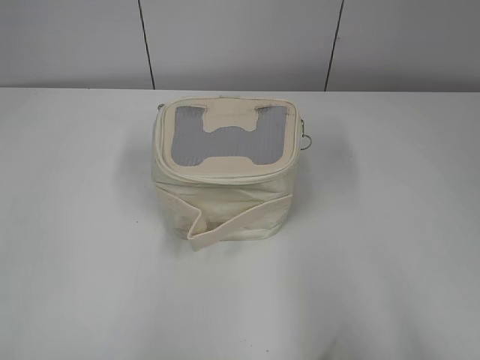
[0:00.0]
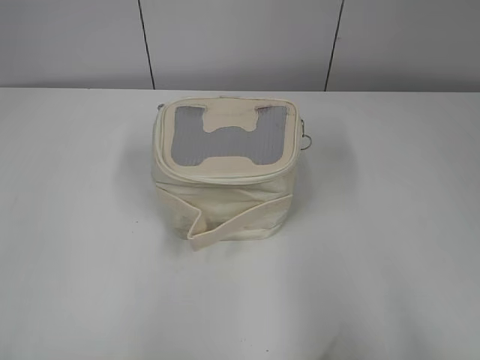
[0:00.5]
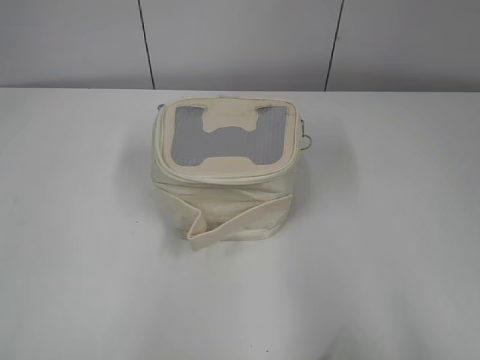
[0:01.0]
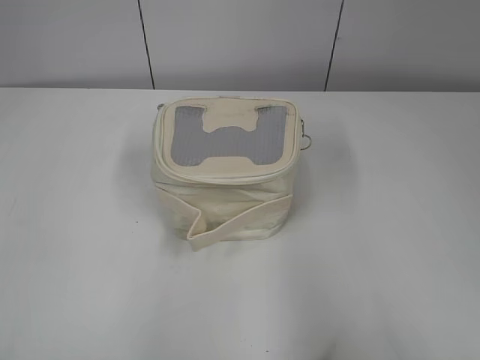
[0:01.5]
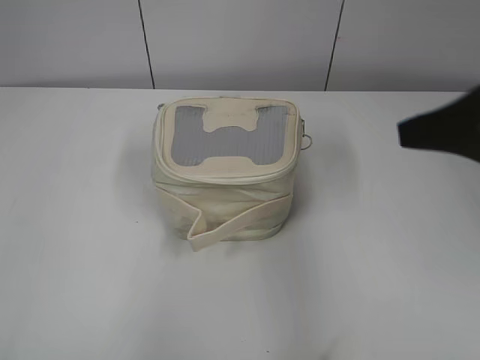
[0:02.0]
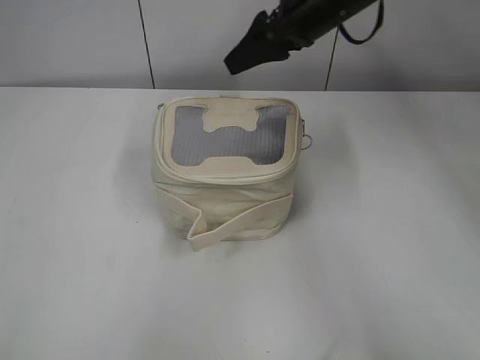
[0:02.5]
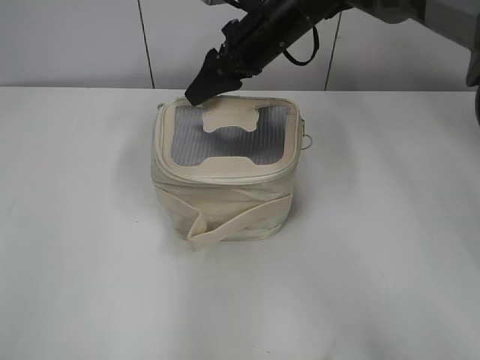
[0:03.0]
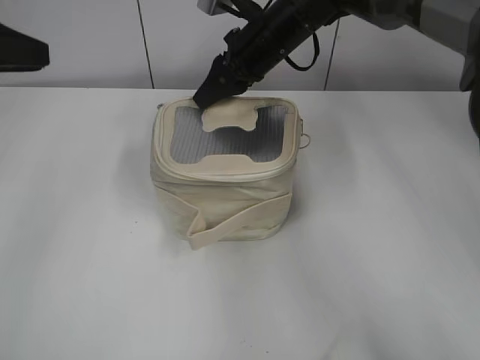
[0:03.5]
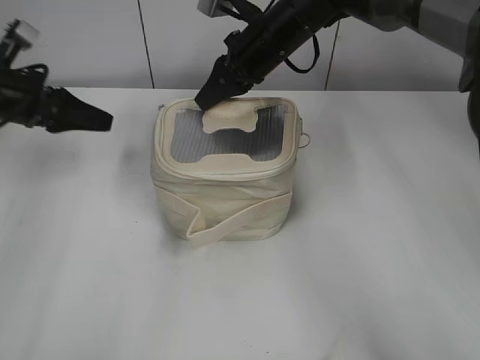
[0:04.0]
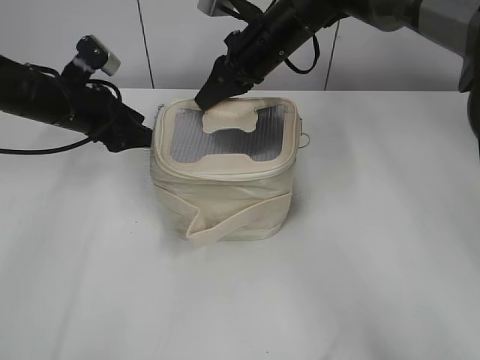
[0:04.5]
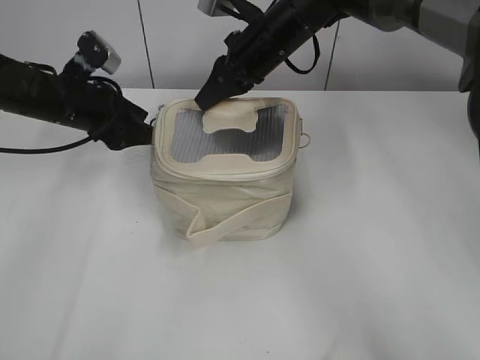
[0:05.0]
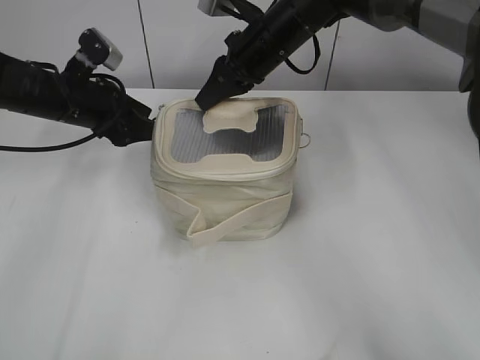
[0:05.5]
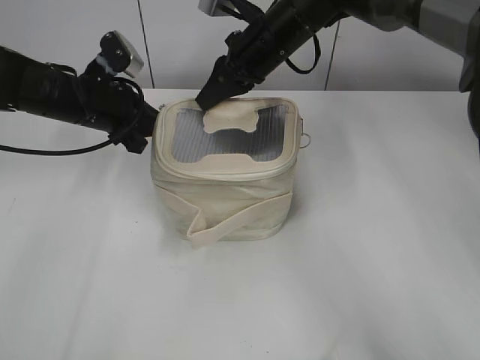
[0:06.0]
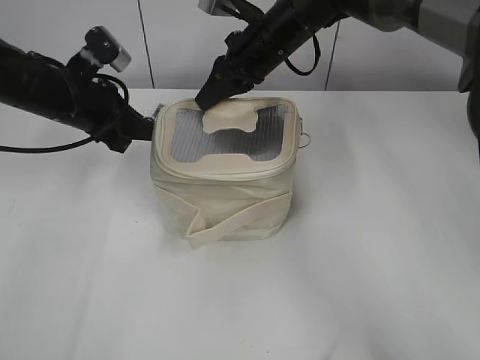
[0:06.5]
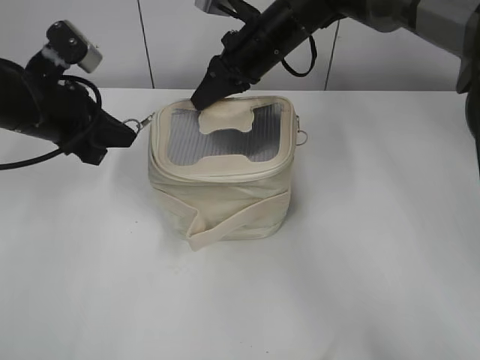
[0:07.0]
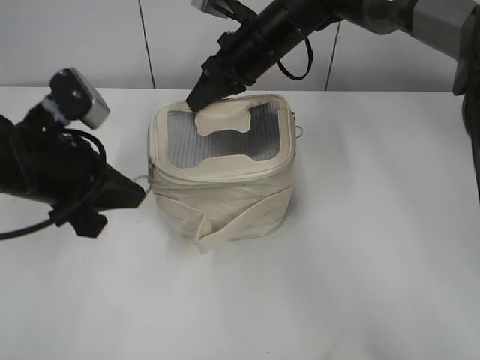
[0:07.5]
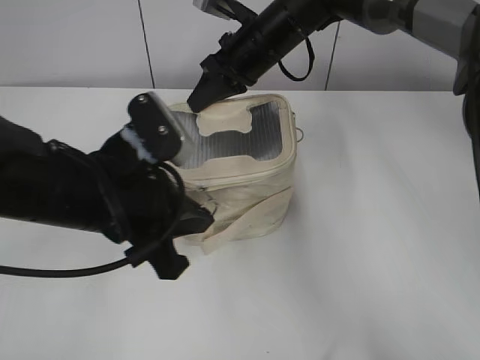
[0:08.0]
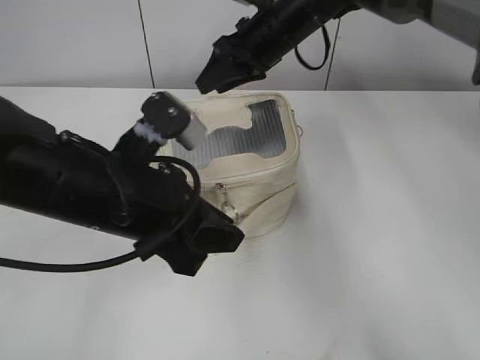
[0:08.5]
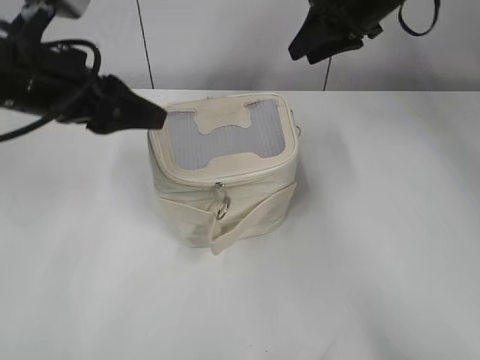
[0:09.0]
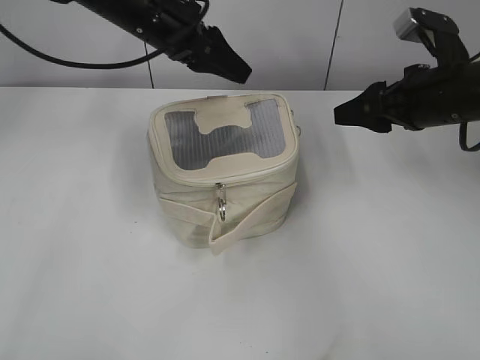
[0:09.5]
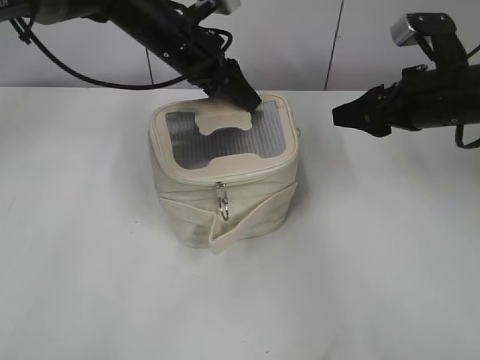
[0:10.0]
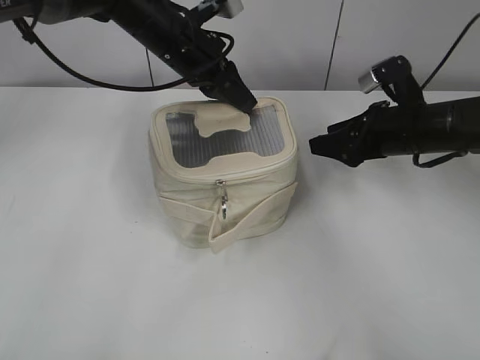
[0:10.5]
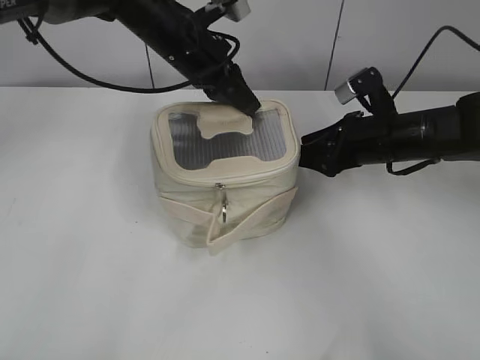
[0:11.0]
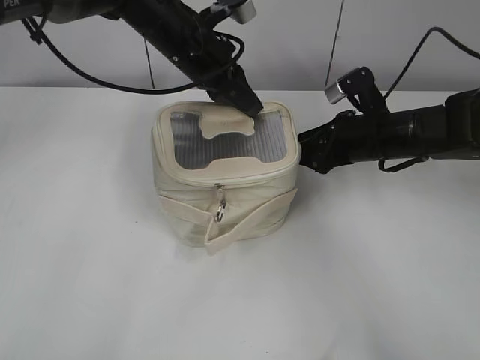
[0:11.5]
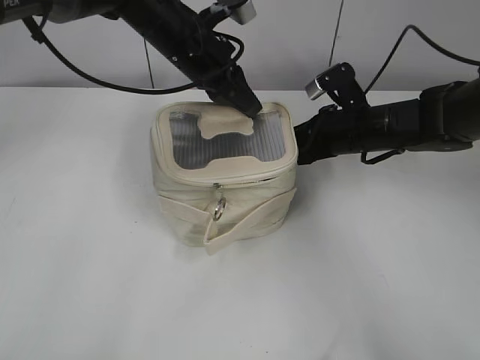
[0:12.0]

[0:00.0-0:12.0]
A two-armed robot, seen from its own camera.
Step, 0.0 to 8.0 s: Zip up the bag with your left hand.
2.0 to 4.0 s: The left gripper travels forward by some 40 cm, and opens up. The right gripper heads forward and to the left, covering roughly 35 cm, and closes its fingers.
4.0 to 6.0 s: The left gripper travels to the right by some 10 cm, and closes its fingers.
6.0 to 8.0 s: The left gripper goes approximately 20 cm backward.
8.0 to 10.0 s: The right gripper travels to the right and backward by approximately 25 cm, and opens its fingers; the left gripper is displaced forward by roughly 25 cm, and opens its fingers.
10.0 to 12.0 s: The left gripper closes its fingers. Meanwhile the right gripper shifts roughly 10 cm downward, to the left and forward, and closes.

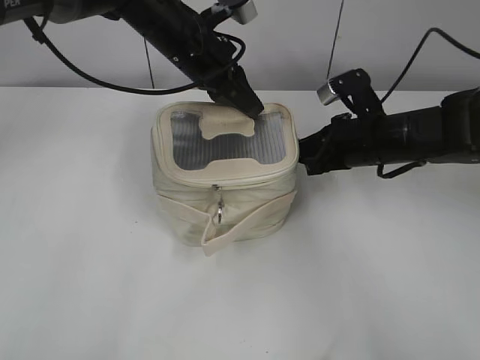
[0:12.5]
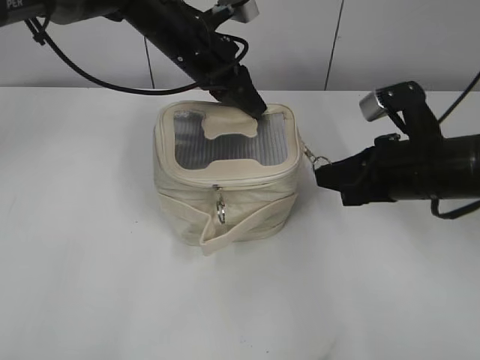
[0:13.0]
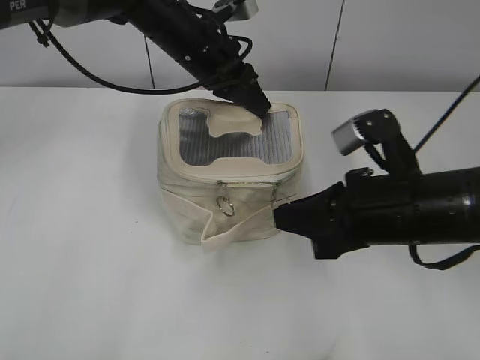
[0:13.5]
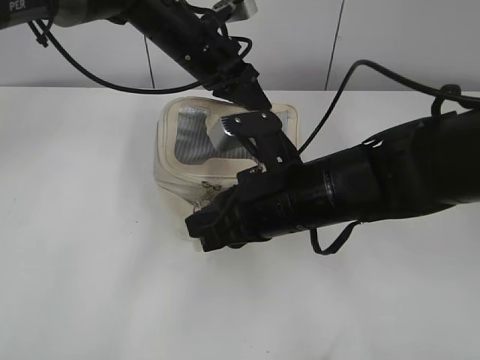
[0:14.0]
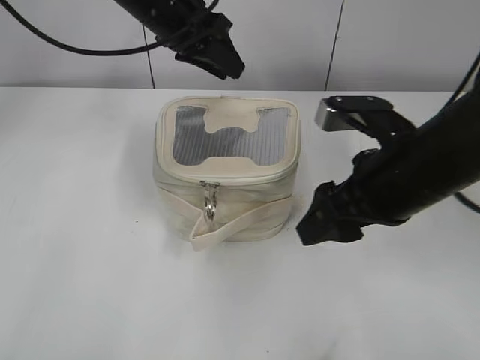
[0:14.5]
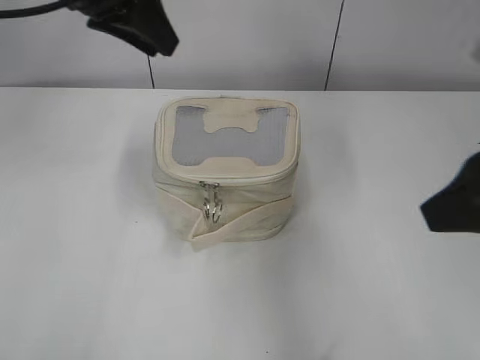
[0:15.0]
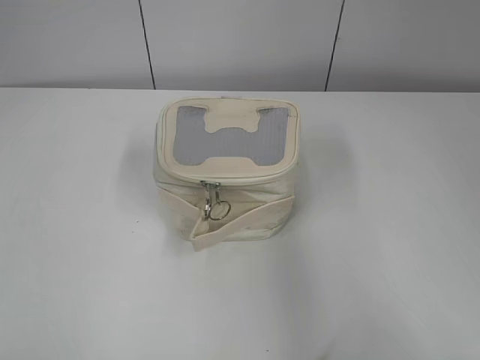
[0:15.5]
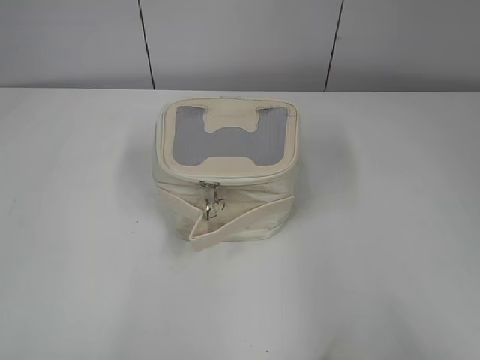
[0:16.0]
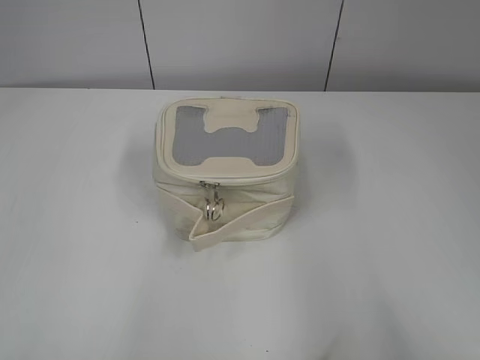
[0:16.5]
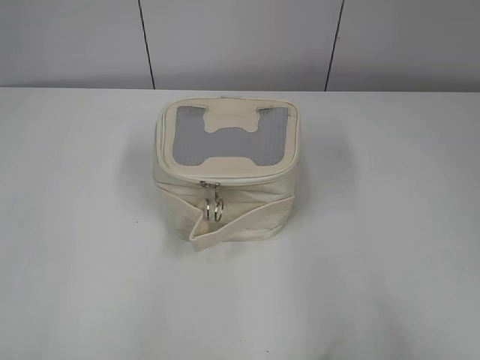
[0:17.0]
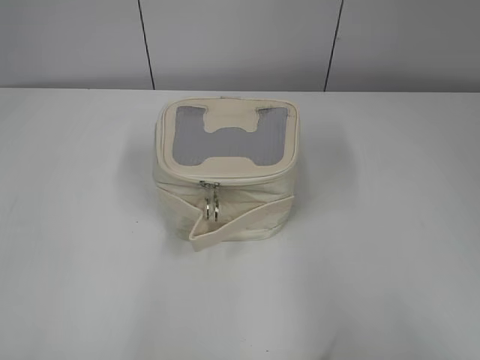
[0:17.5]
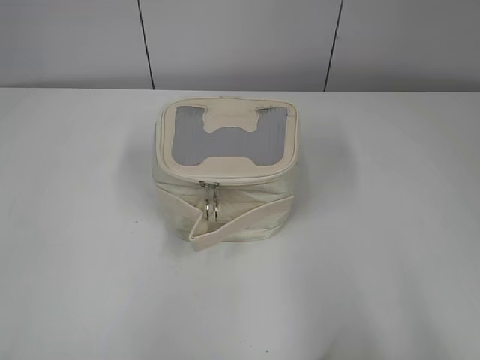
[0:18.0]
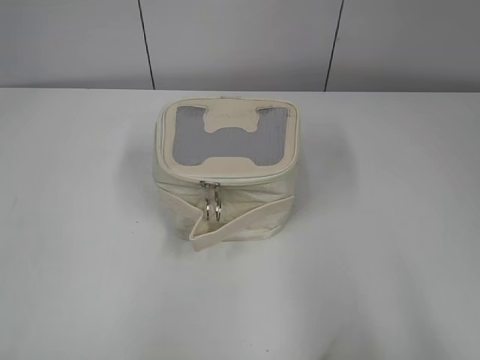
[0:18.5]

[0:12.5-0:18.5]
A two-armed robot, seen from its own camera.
12.5 to 14.5 s: The right gripper goes some 15 cm backward and upward, and opens, while the left gripper moves approximately 5 cm, and opens its fingers.
14.5 to 16.5 s: The left gripper moves backward and to the left, roughly 50 cm. Meanwhile the right gripper goes about 30 cm backward and to the right.

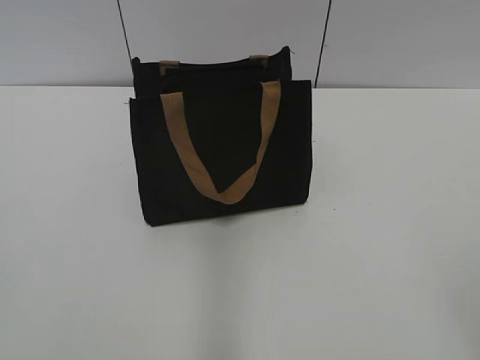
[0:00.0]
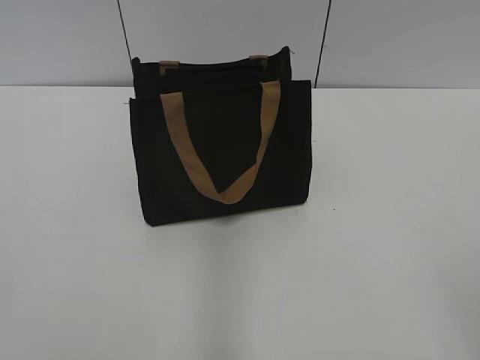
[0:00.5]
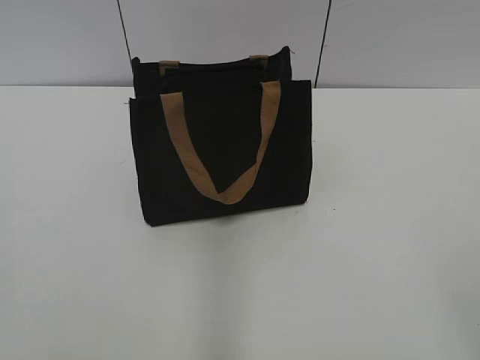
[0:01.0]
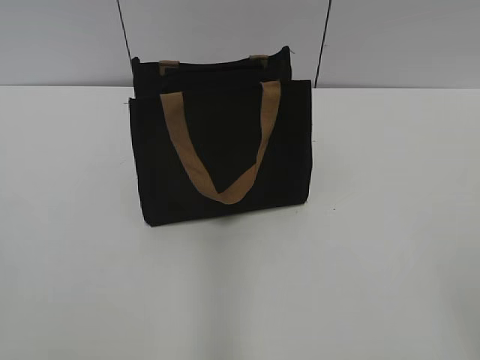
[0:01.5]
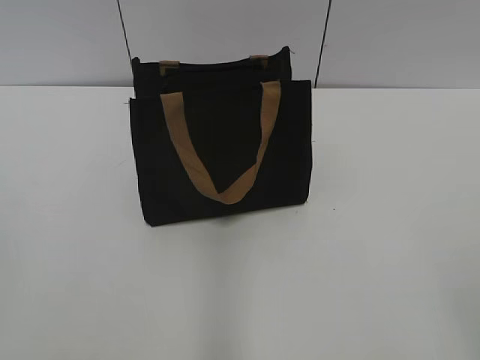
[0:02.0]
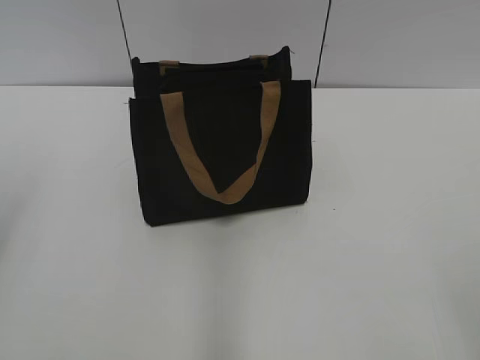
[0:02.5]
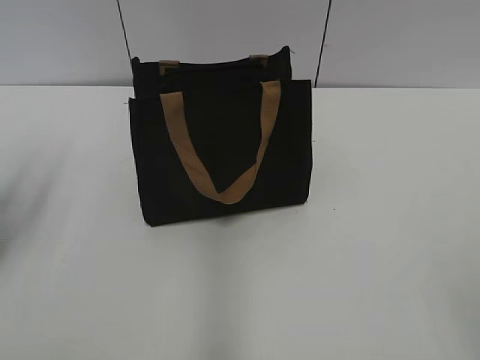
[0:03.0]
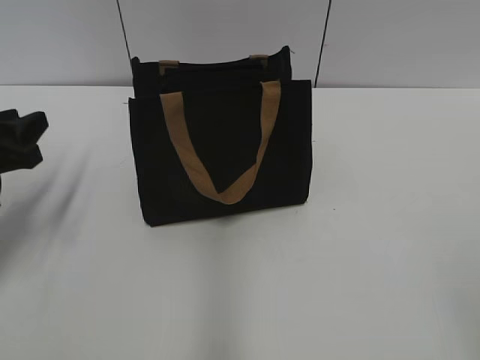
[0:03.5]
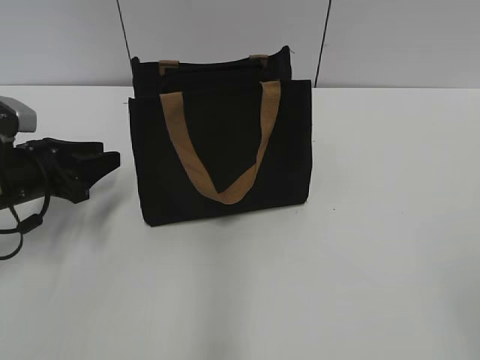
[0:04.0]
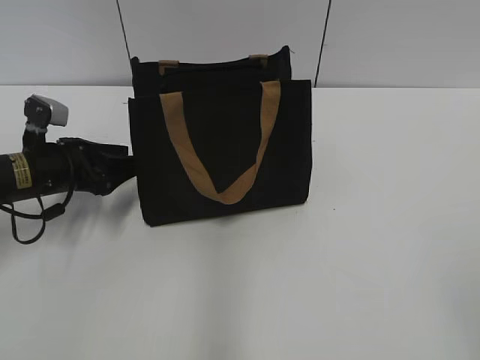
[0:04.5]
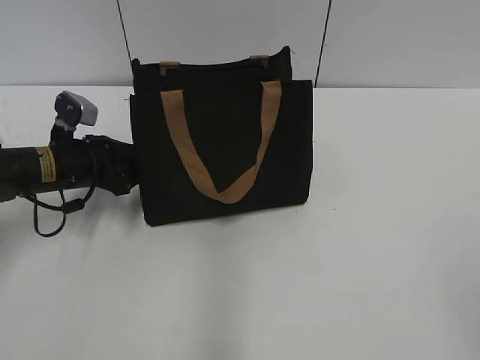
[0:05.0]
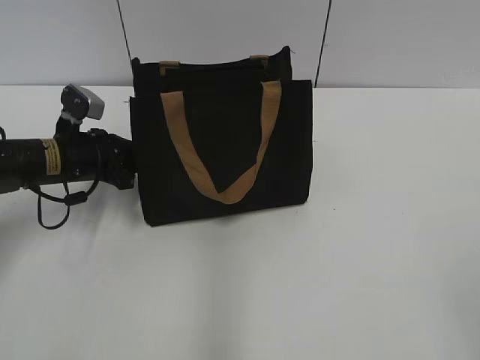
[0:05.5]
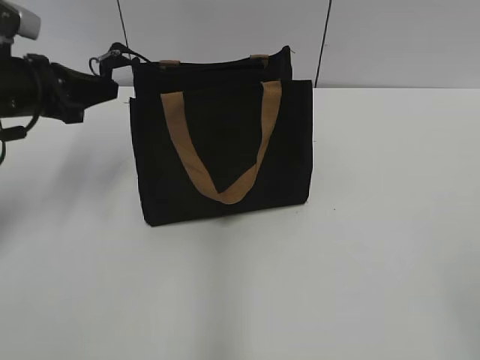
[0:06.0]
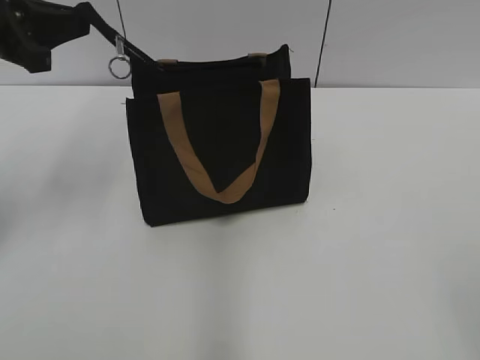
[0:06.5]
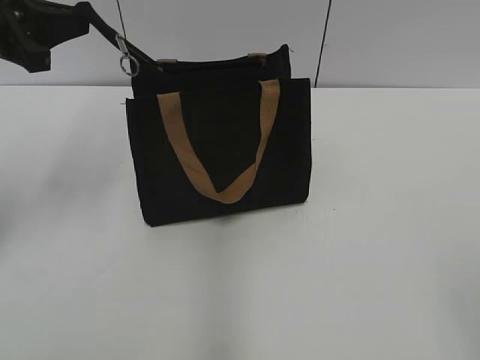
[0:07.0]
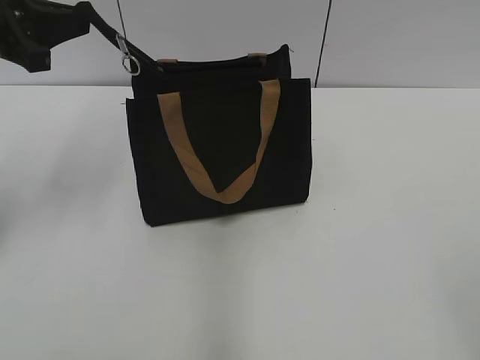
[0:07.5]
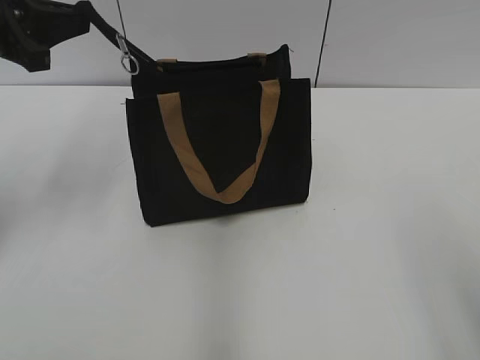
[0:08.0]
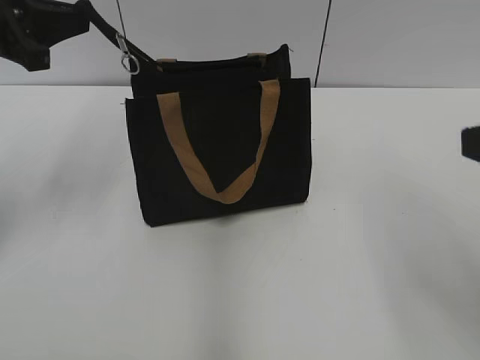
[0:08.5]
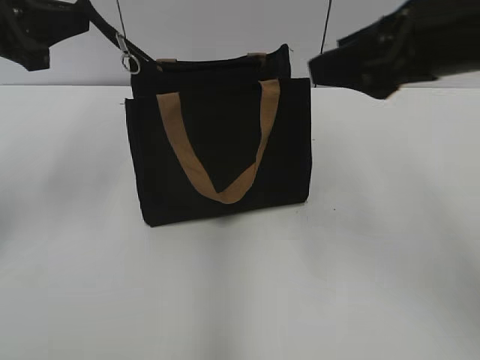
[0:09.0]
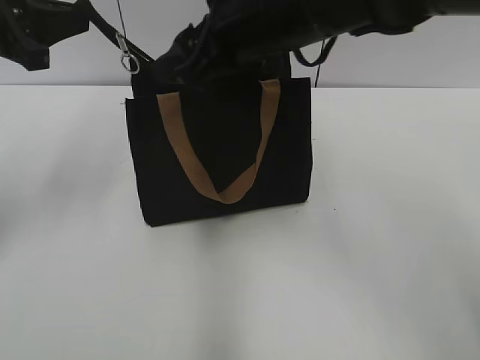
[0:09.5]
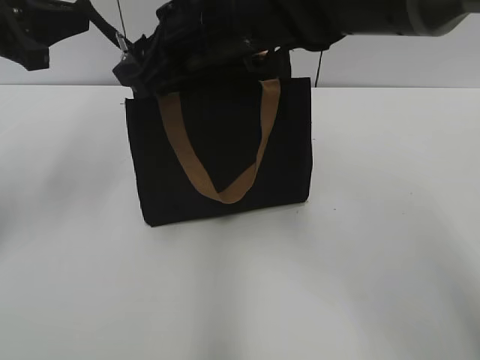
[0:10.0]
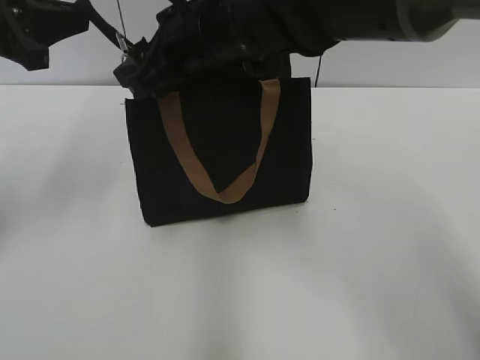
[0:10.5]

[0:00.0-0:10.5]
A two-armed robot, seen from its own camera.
2.0 to 4.0 s: The left gripper moves forward and downward, approximately 35 cm.
4.0 to 6.5 s: The left gripper is displaced upward by roughly 15 cm, and closes.
6.5 to 8.5 s: The right gripper shifts some 15 cm forward.
8.5 to 10.5 s: The right gripper goes roughly 35 cm to the left and forward.
